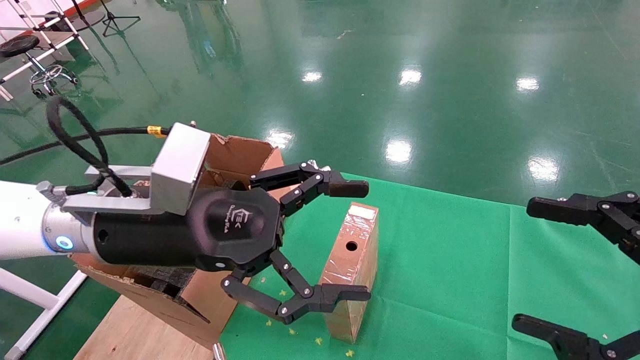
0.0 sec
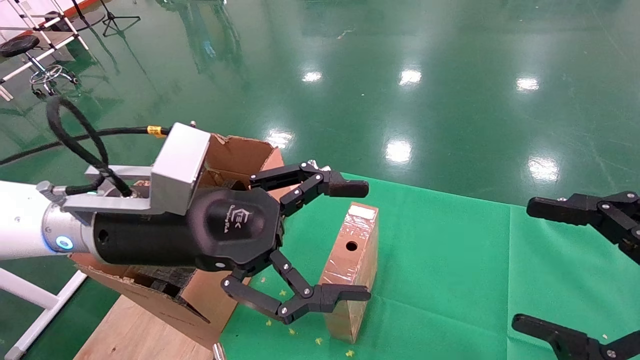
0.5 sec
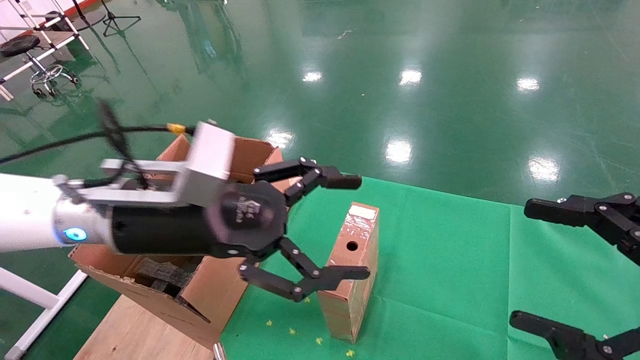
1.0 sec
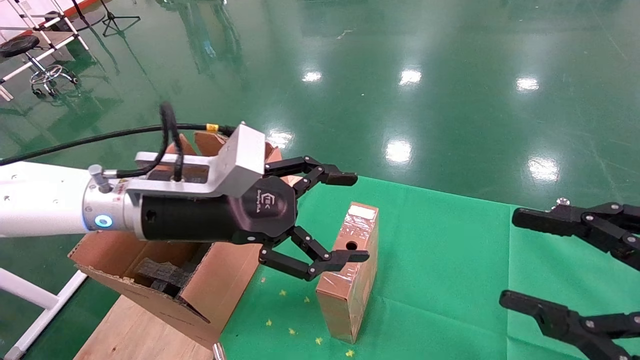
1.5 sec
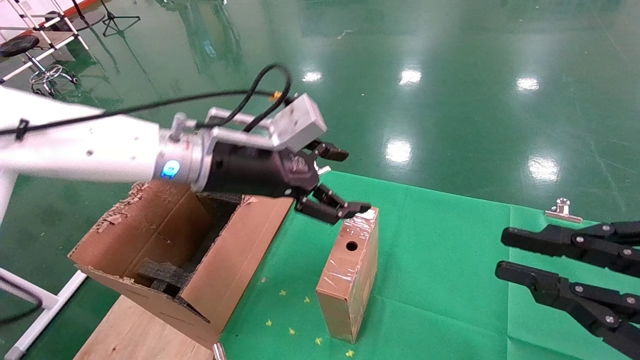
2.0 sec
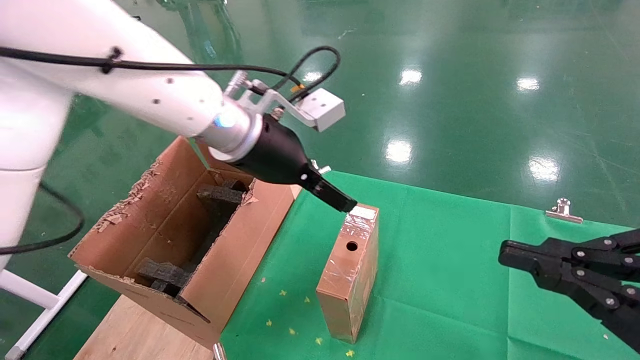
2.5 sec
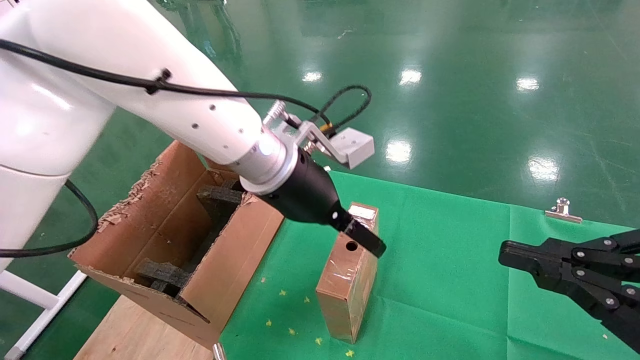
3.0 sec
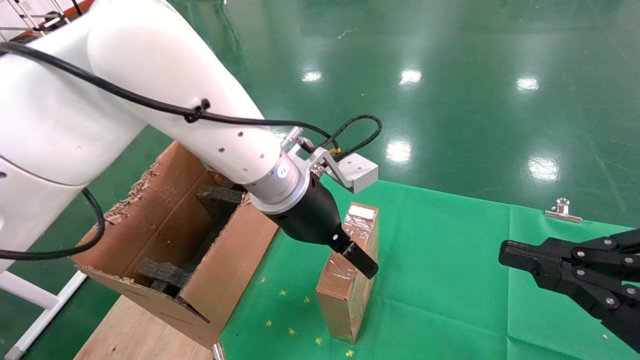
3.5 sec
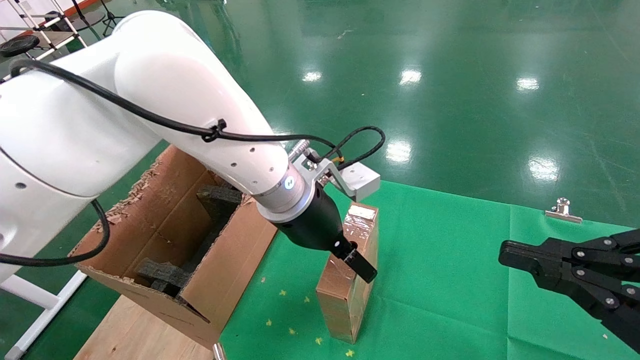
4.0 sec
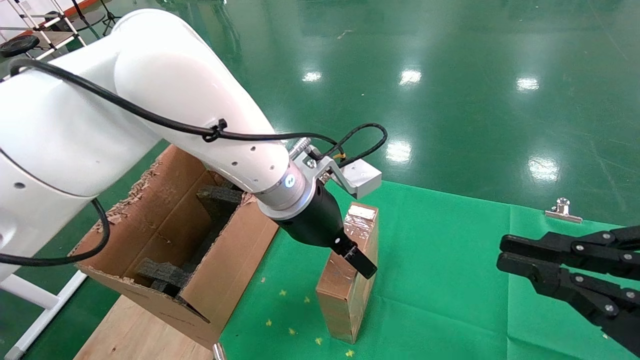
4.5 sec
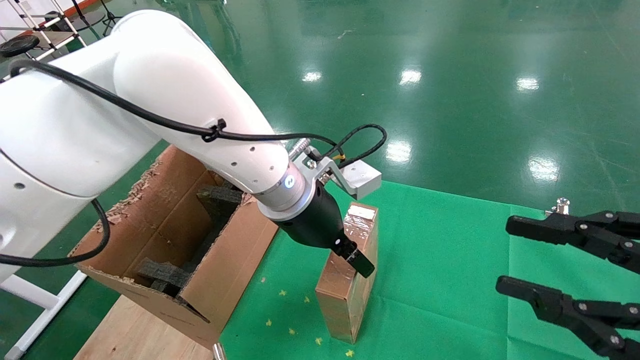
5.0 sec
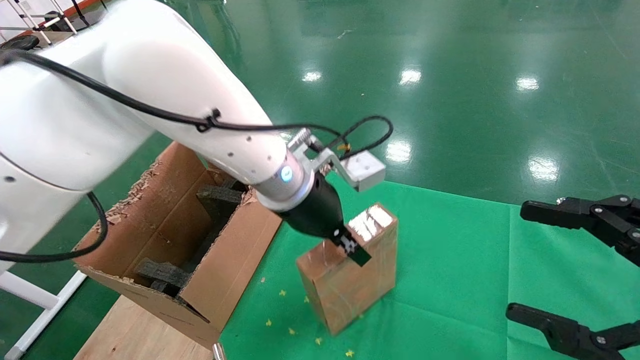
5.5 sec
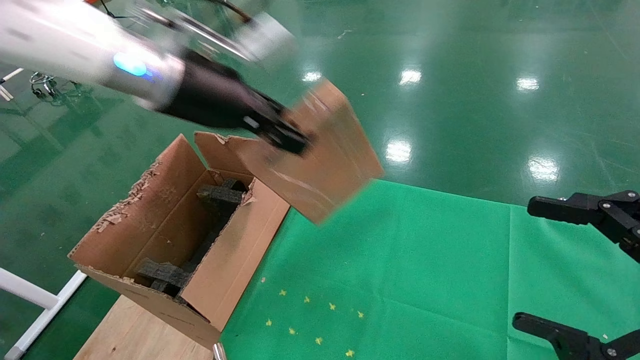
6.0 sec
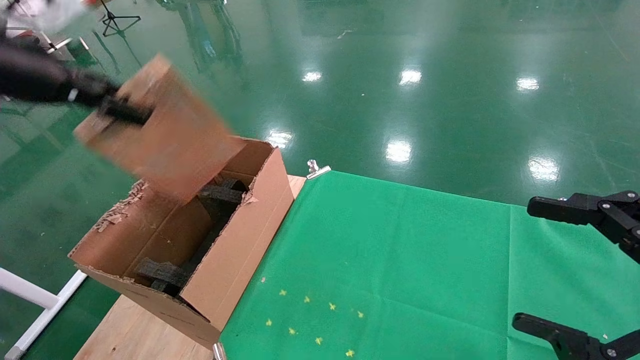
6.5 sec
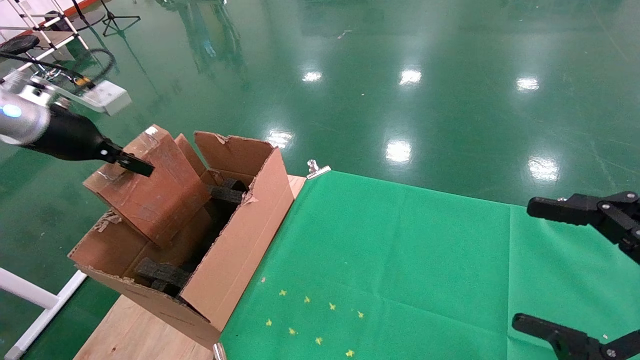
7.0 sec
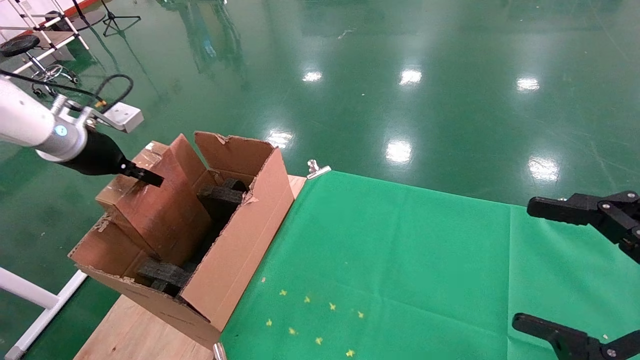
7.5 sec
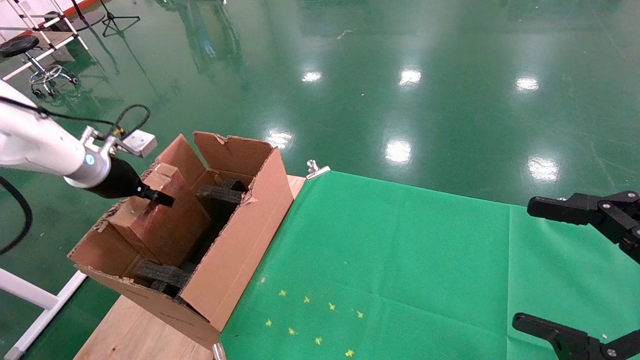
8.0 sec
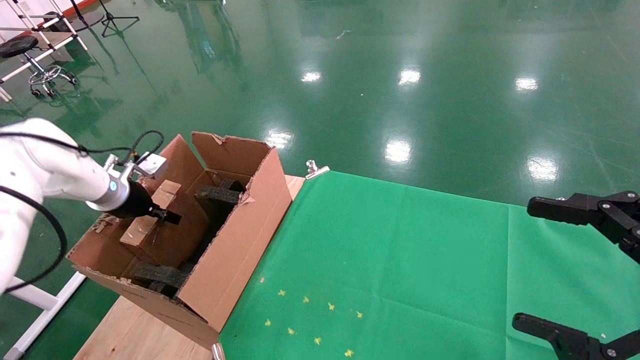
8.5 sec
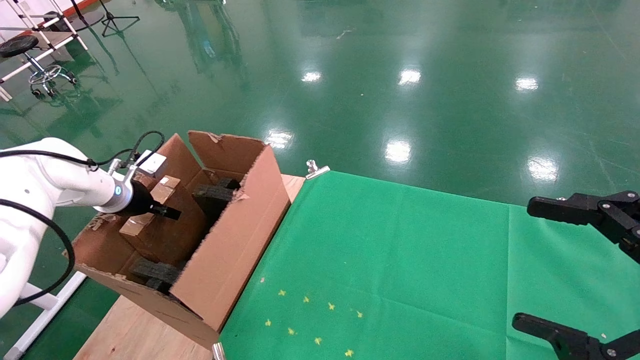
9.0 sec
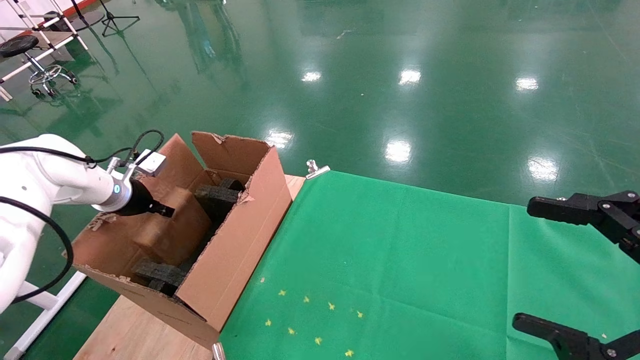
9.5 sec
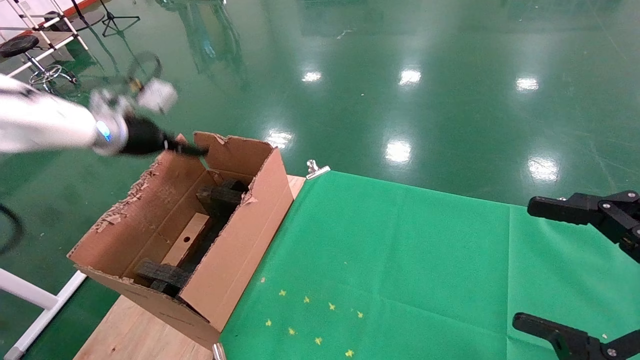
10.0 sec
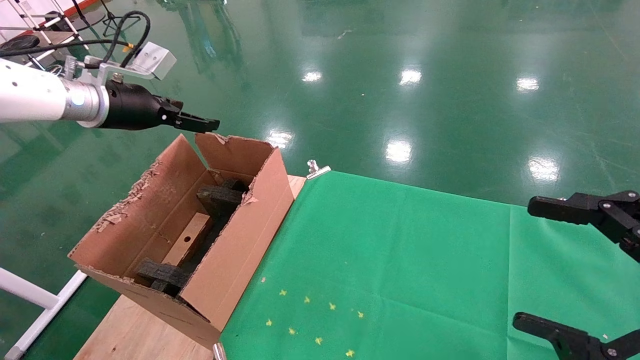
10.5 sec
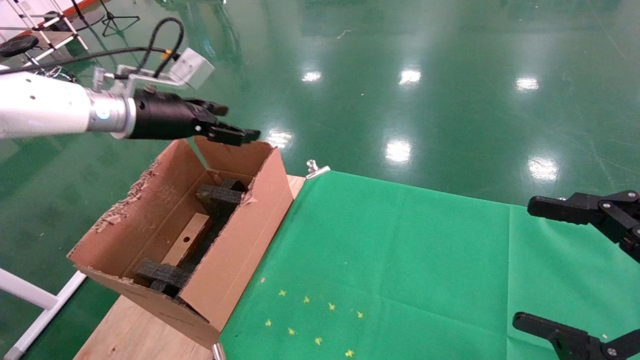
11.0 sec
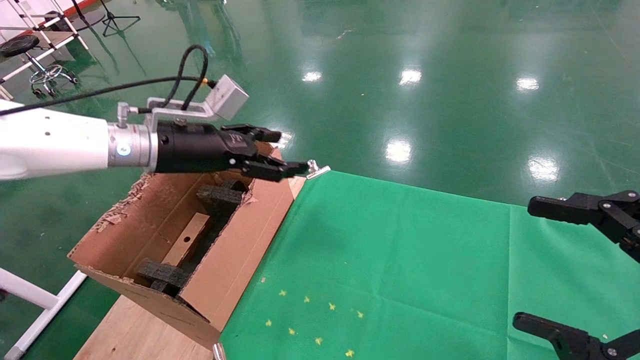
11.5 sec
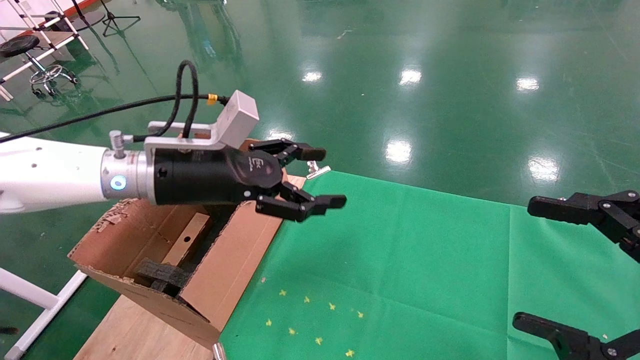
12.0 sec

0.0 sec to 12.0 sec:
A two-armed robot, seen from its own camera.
Task of the whole recording: using a robotic arm to pick up a cardboard box and palace it the carton.
Step, 1.5 sec to 5.0 sec: Pick up the mouse and the power cord paper box.
Step, 5.5 sec to 10.0 sec: Place the mouse and the power cord paper box into the container.
0.0 sec to 2.0 sec: The left gripper shifts approximately 10 cm forward. Meanwhile the right gripper closes up.
2.0 sec to 4.0 sec: The left gripper shifts approximately 10 cm to the right.
4.0 sec to 6.0 sec: The right gripper opens its fingers, while the left gripper heads to the left and upward, covering some 20 cm, and closes its fingers.
6.0 sec to 8.0 sec: The left gripper heads to the left and downward, covering some 30 cm.
8.0 sec to 10.0 sec: The left gripper is displaced upward by about 5 cm, and opens up.
10.0 sec to 12.0 sec: The left gripper moves to the right and backward, roughly 20 cm.

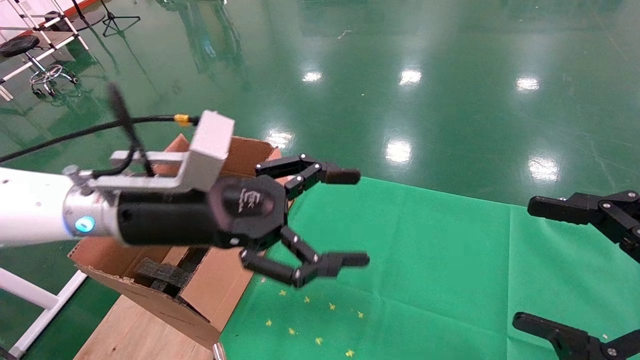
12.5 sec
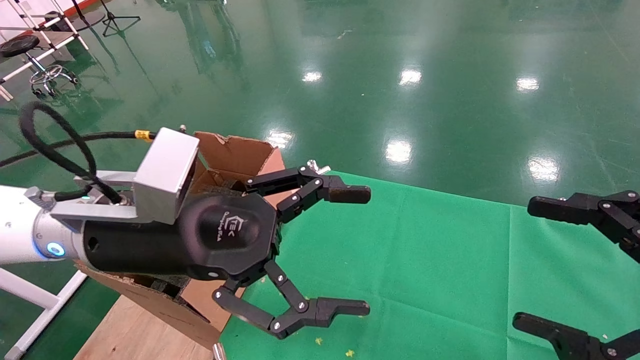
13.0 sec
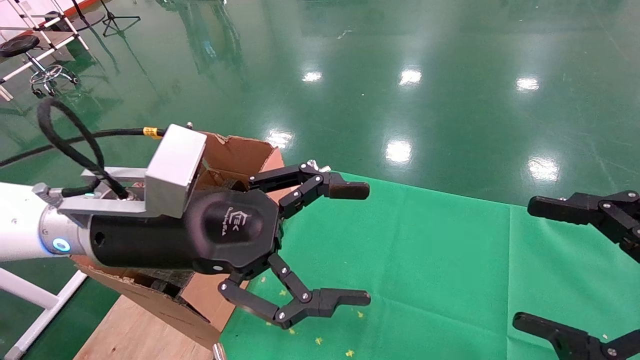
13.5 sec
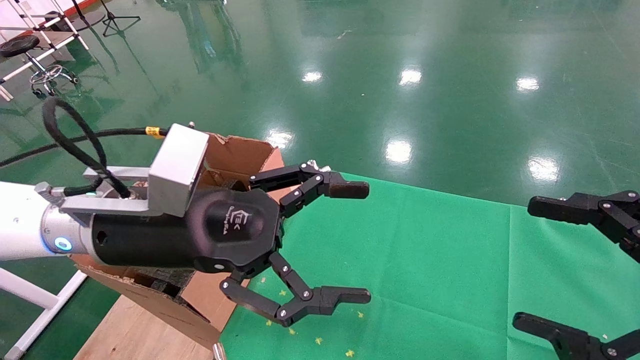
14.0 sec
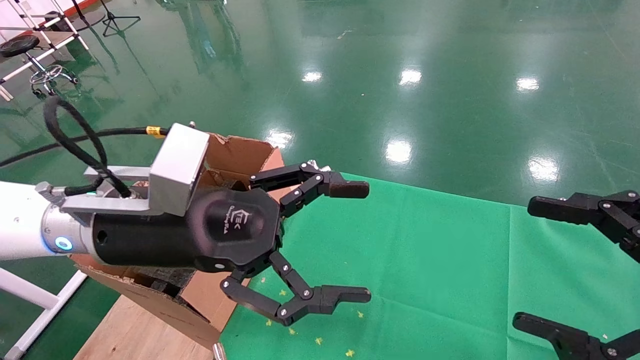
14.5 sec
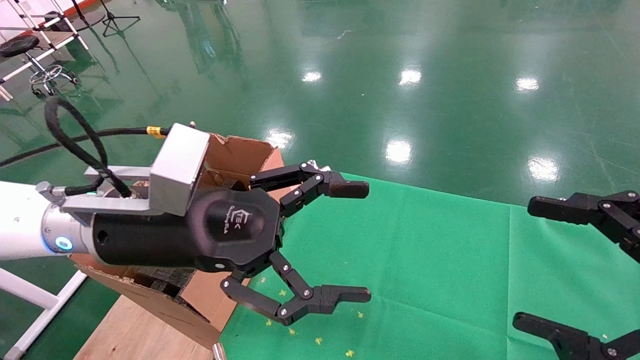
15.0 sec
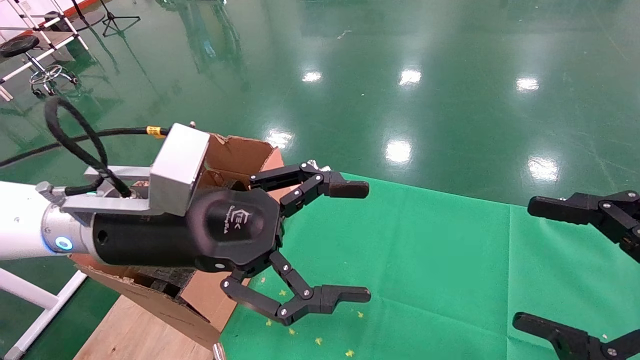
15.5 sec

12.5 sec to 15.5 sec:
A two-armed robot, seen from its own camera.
Task of the whole recording: using a robotic arm to pick up a cardboard box and palace it the carton.
12.5 sec to 14.0 sec: The grippers move only a little.
14.0 sec to 15.5 sec: Both grippers stay put.
